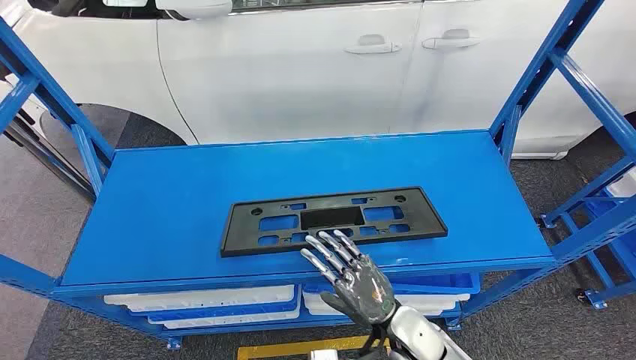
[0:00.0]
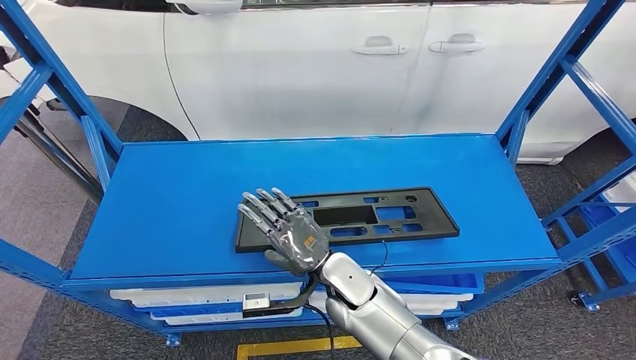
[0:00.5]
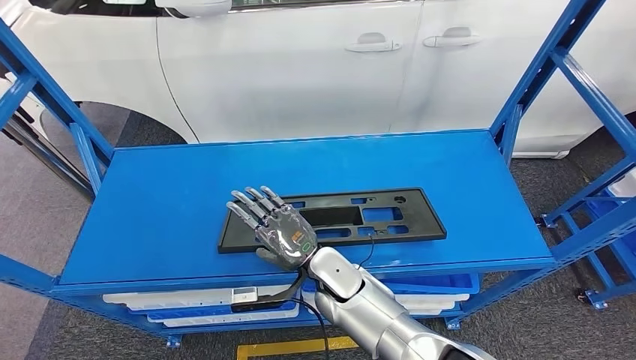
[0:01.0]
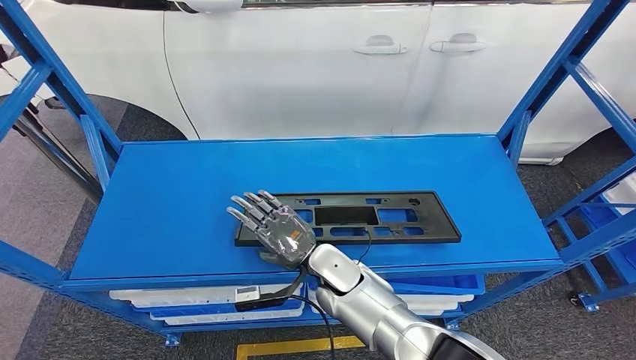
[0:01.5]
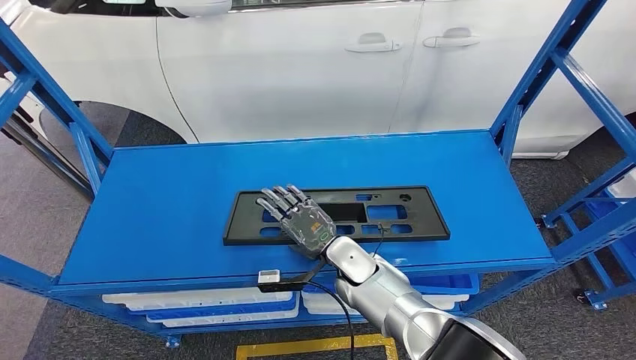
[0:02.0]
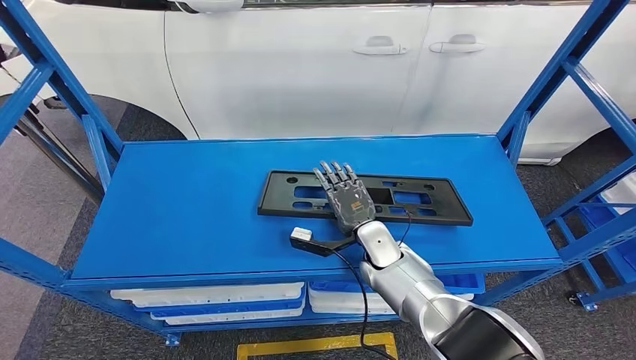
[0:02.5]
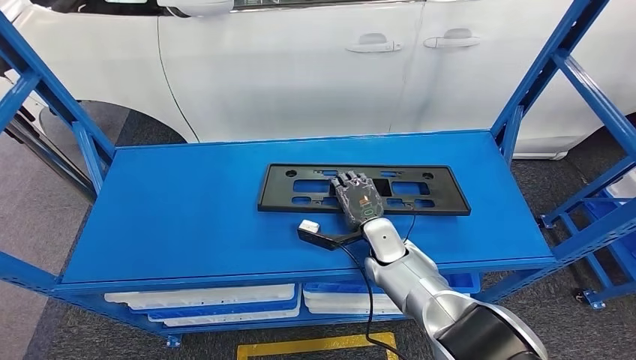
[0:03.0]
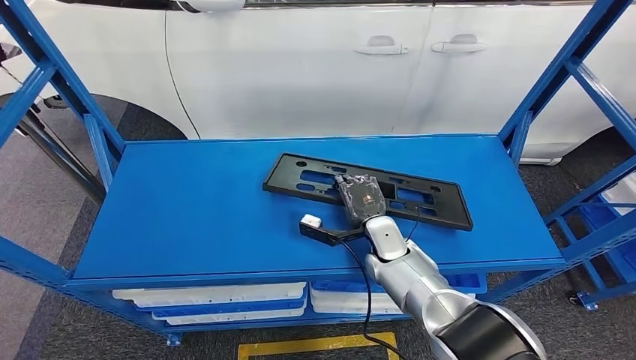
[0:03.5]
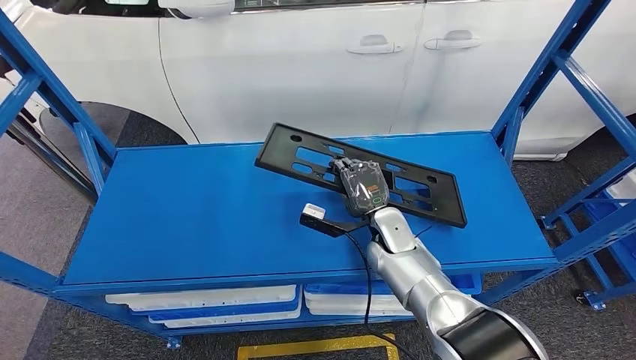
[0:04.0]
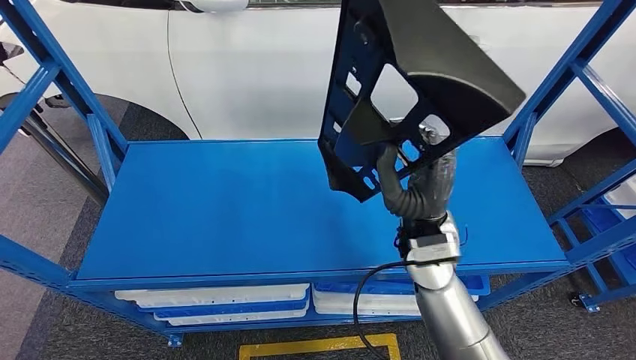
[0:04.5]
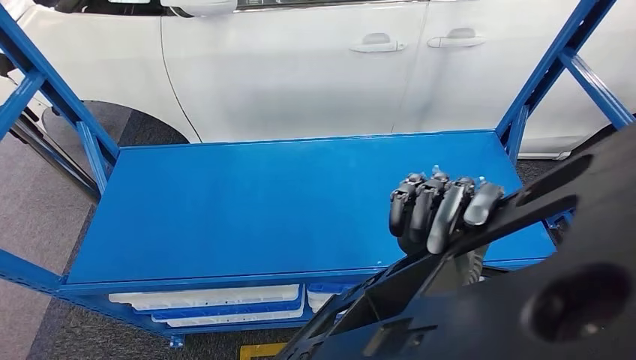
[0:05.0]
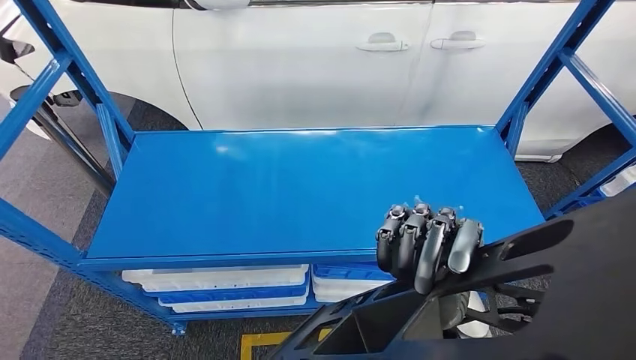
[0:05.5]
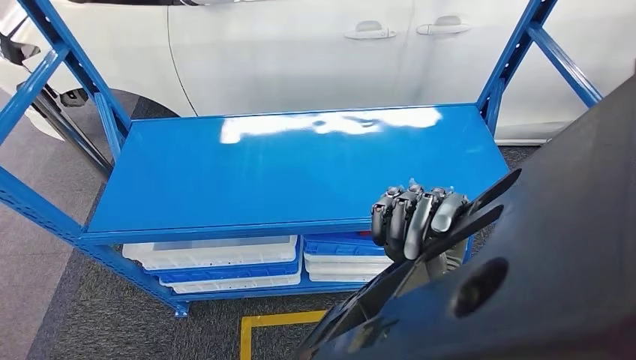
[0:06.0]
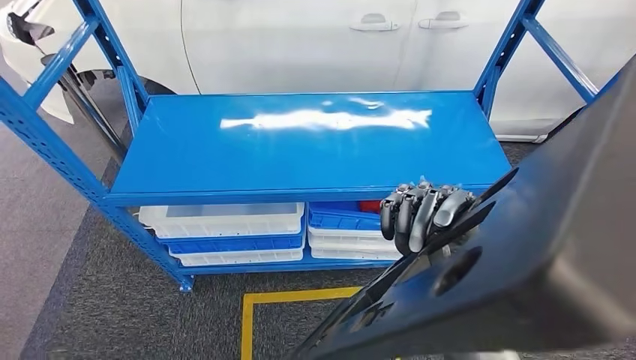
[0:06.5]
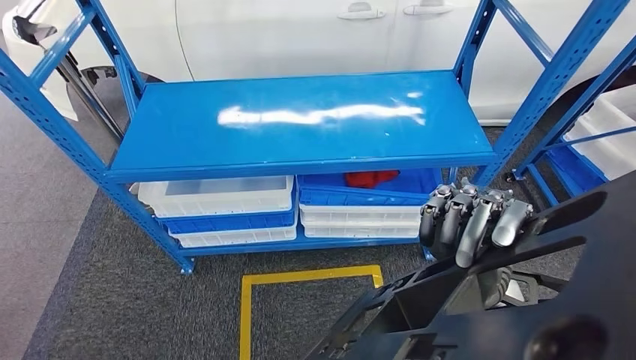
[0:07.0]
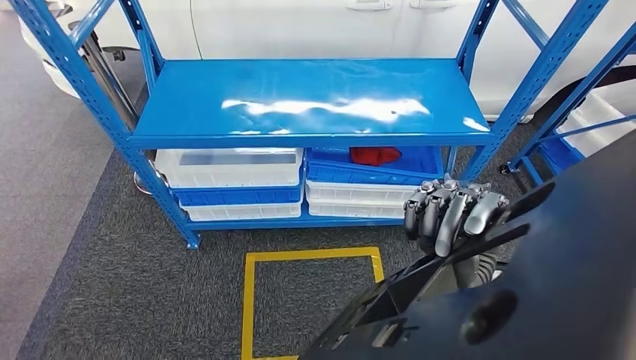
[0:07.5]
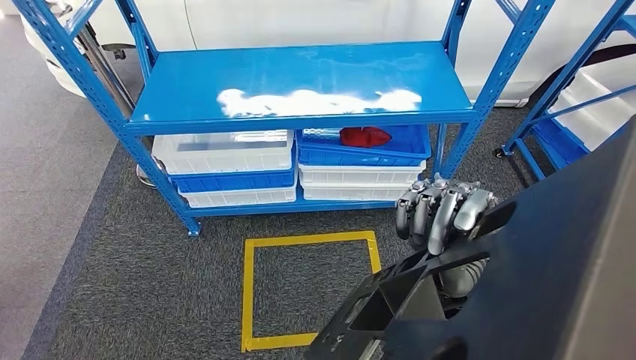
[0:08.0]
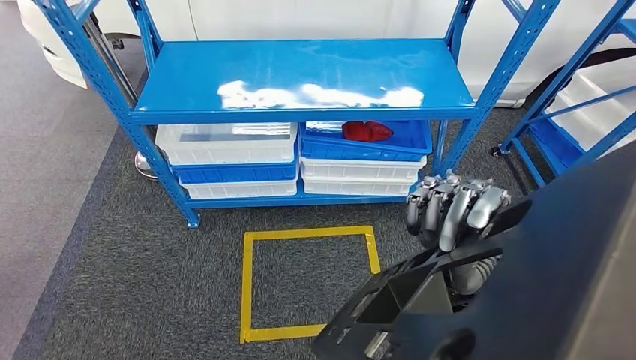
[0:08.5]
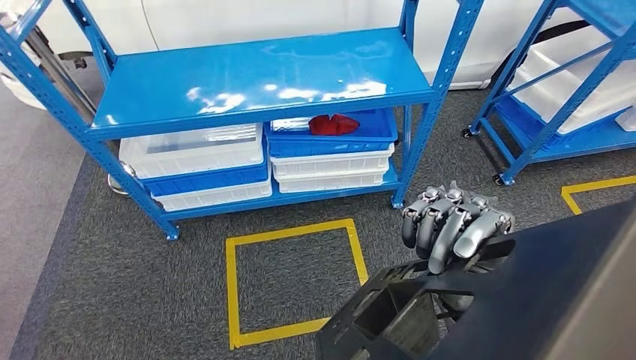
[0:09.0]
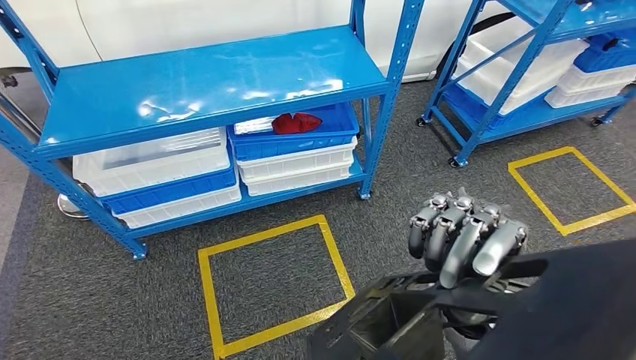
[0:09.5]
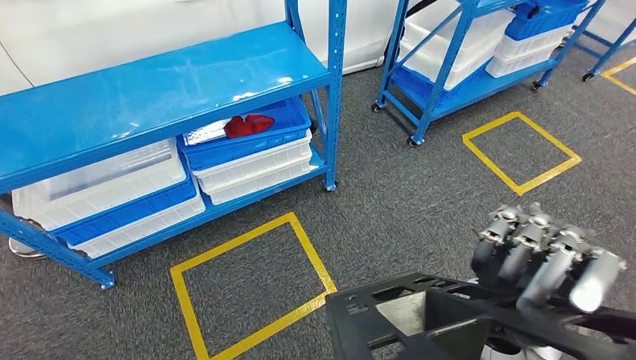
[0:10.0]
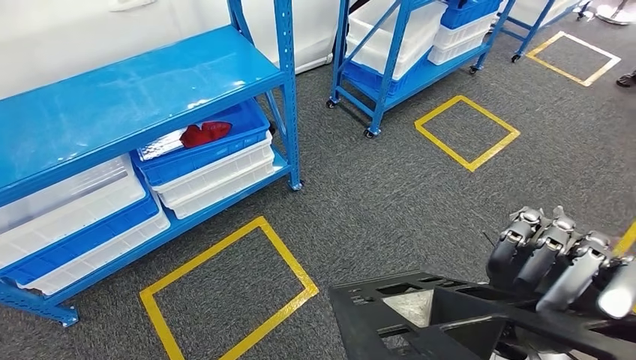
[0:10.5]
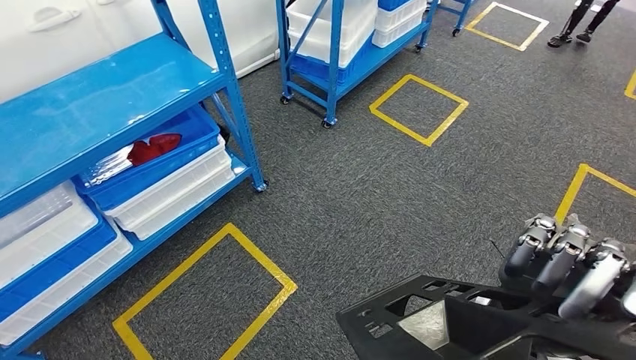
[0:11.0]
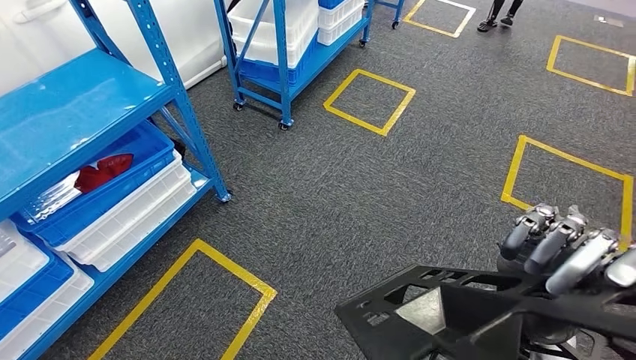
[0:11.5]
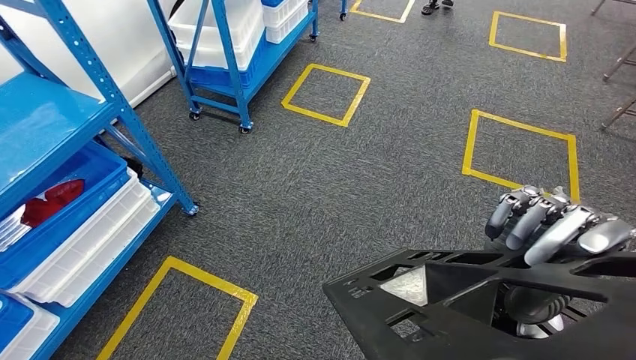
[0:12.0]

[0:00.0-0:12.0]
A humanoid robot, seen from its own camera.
Step, 0:00.0 to 0:05.0: Pick up the large material from the shelf.
0:02.0 to 0:04.0: The right hand travels to the right by some 5 cm.

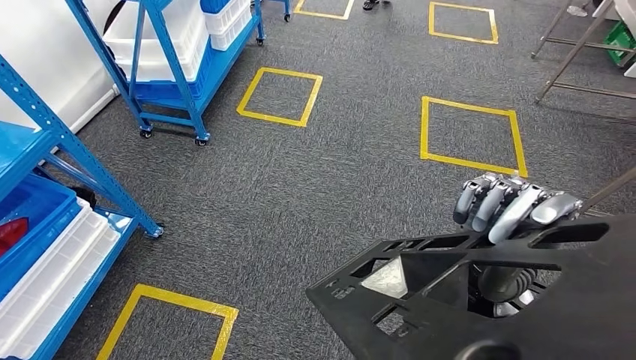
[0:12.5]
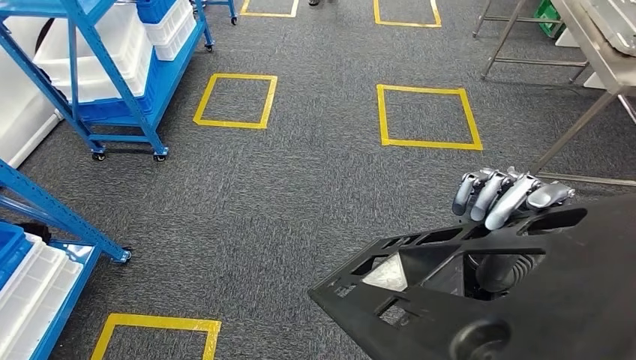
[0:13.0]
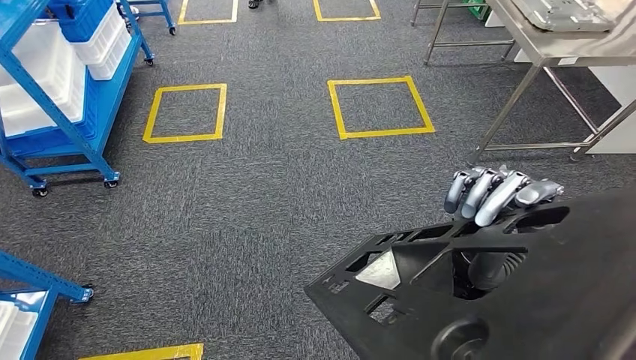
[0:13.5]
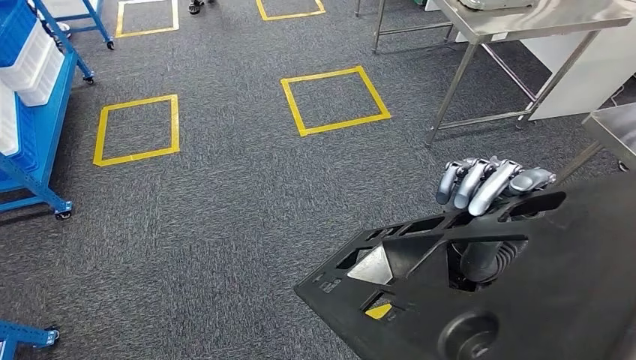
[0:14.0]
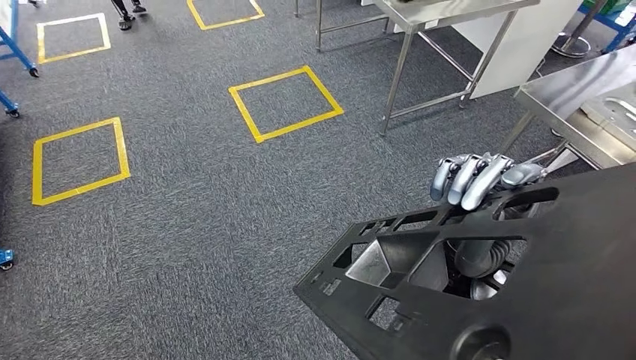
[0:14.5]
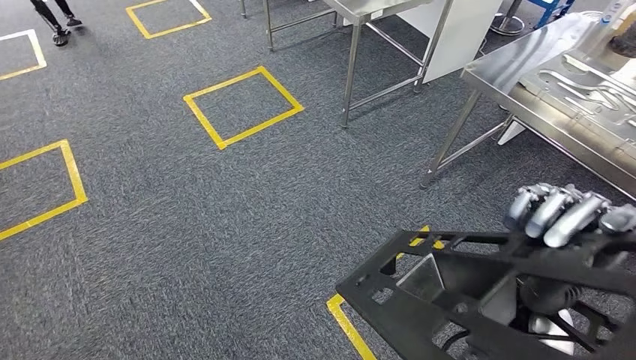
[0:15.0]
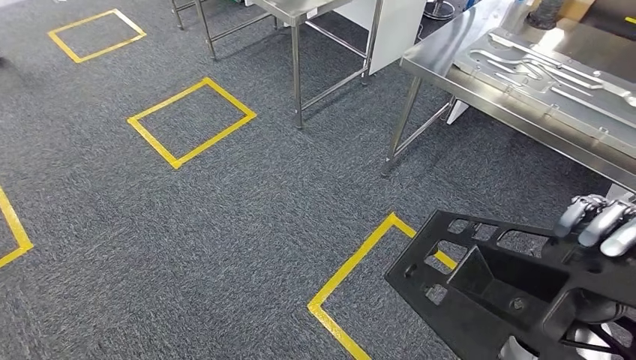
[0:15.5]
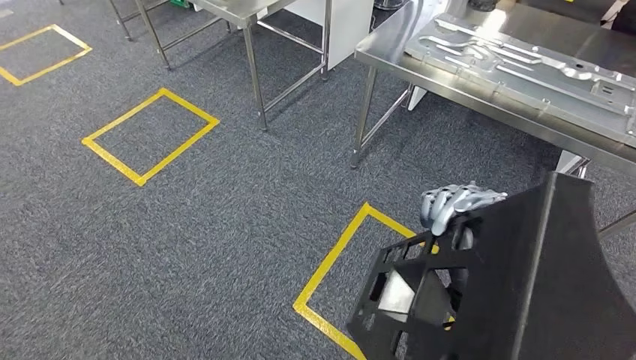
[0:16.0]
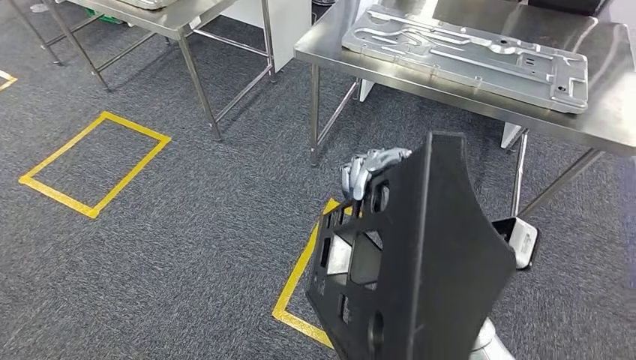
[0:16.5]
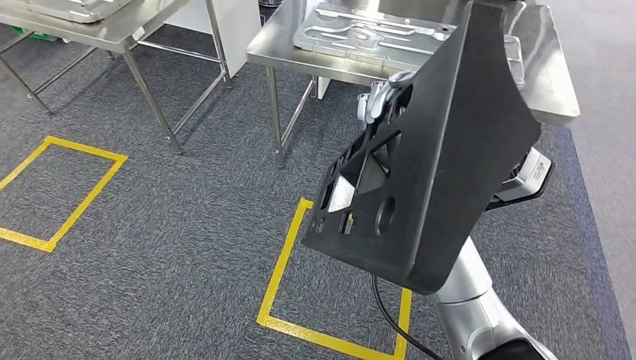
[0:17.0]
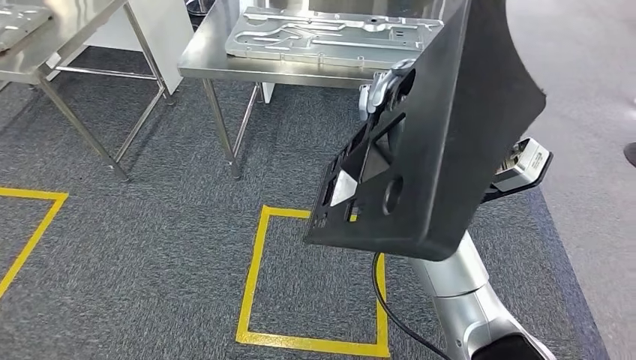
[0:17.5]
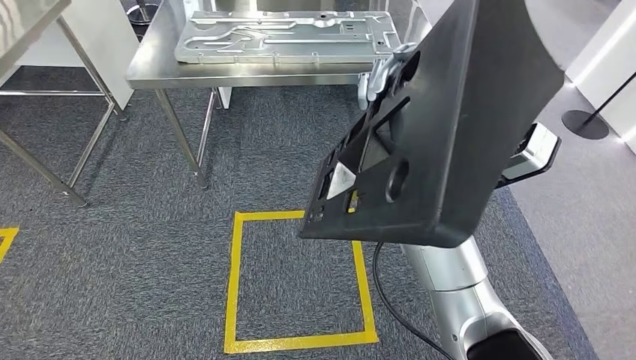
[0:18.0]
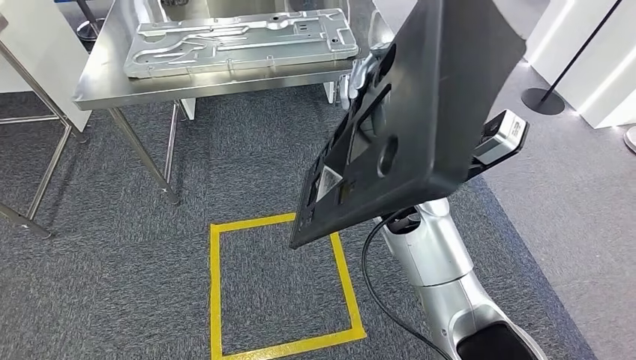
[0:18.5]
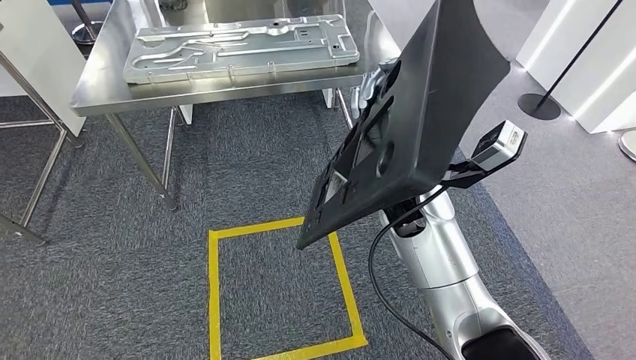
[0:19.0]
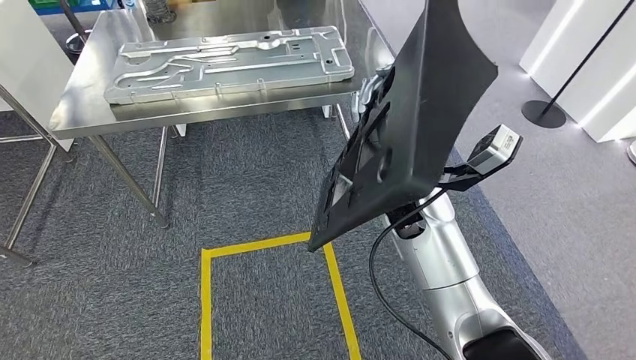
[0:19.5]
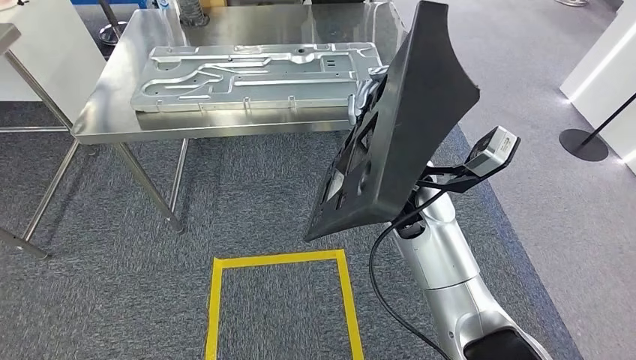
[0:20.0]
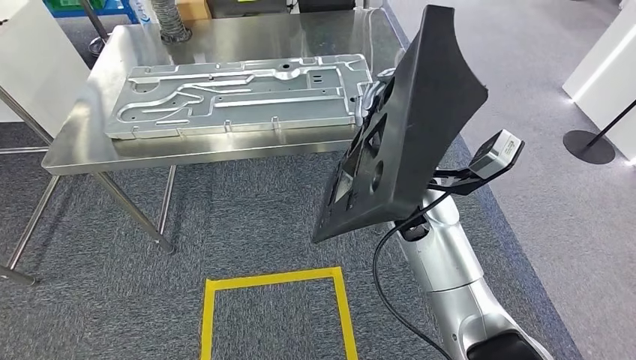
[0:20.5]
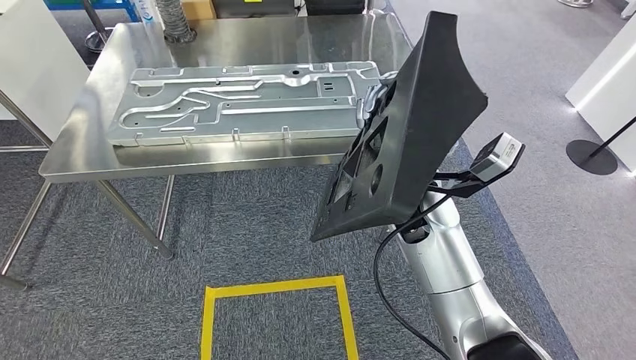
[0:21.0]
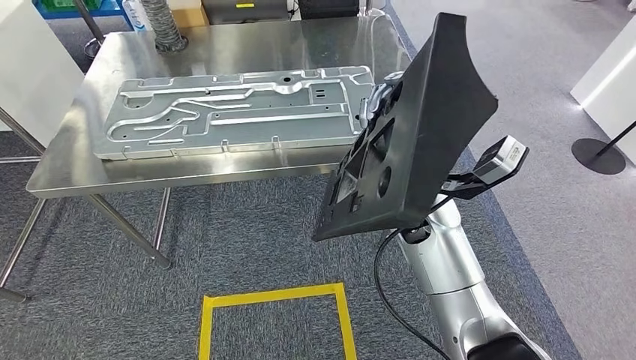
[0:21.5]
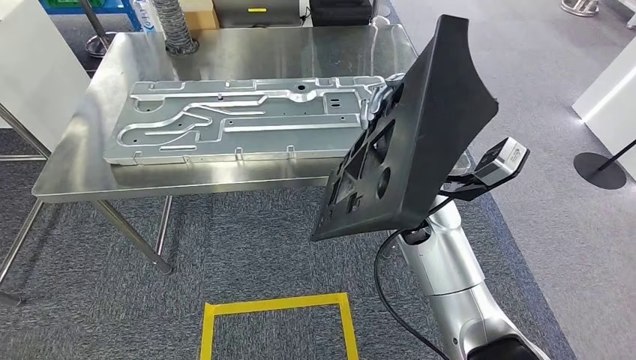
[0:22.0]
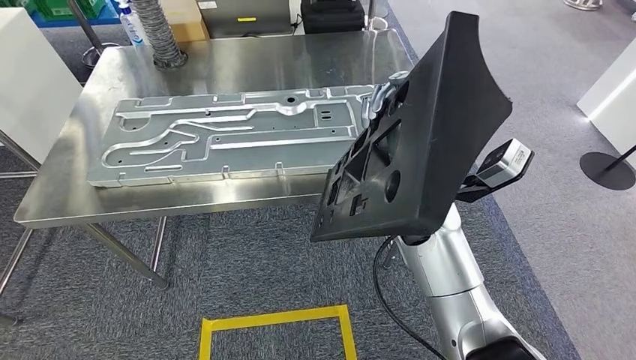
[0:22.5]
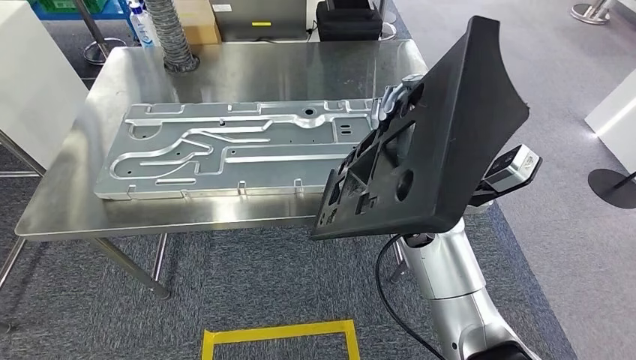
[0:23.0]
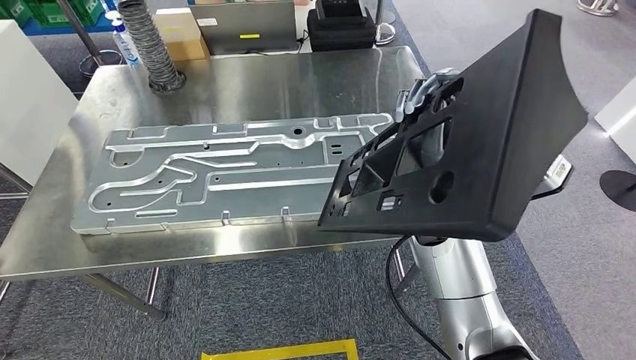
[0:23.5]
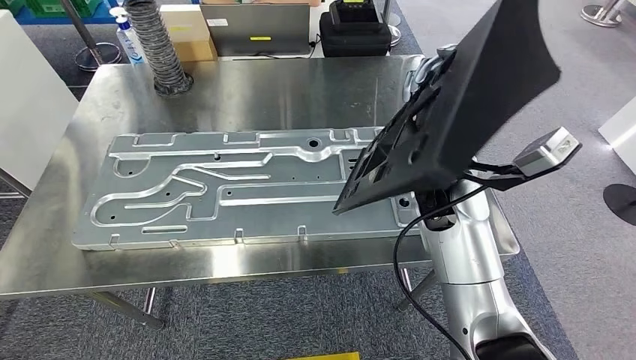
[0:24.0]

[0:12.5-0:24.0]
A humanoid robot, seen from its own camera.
Step, 0:12.5 to 0:21.5: Move the large material to the workbench.
